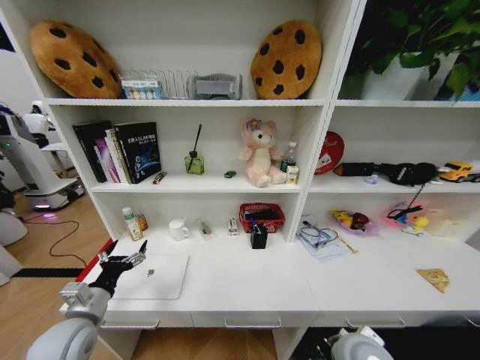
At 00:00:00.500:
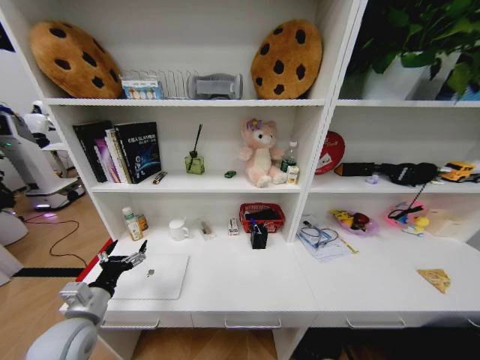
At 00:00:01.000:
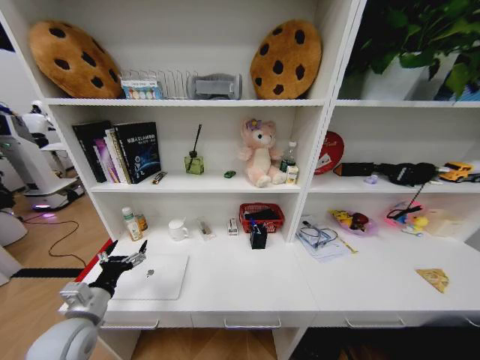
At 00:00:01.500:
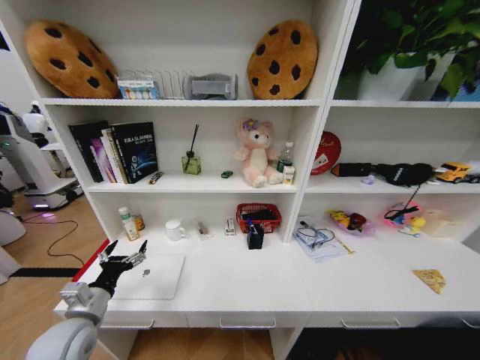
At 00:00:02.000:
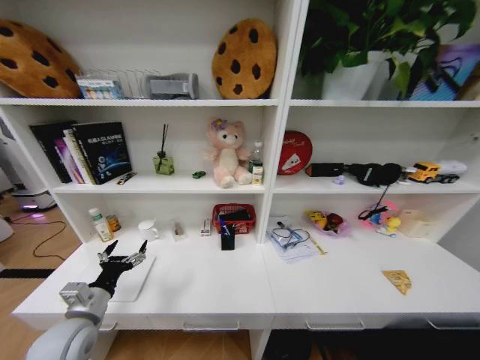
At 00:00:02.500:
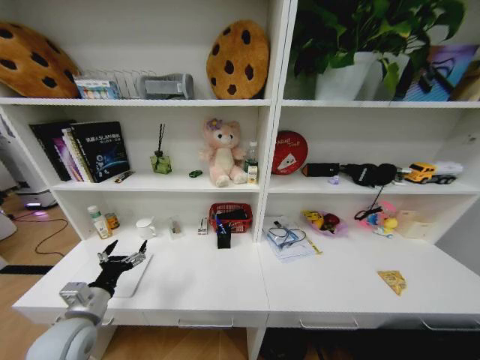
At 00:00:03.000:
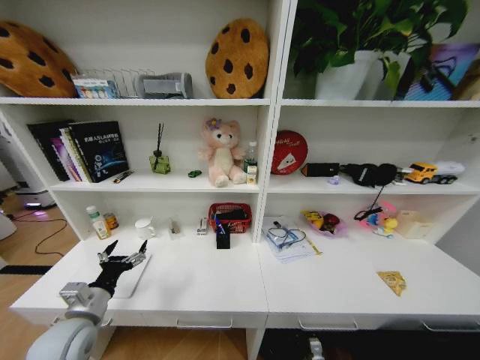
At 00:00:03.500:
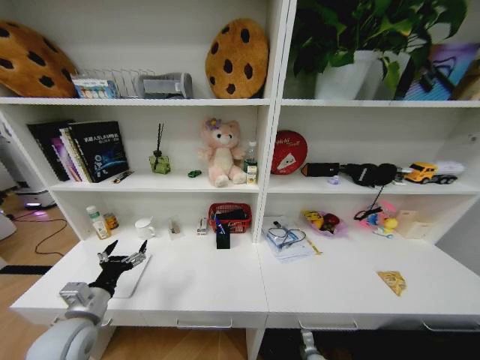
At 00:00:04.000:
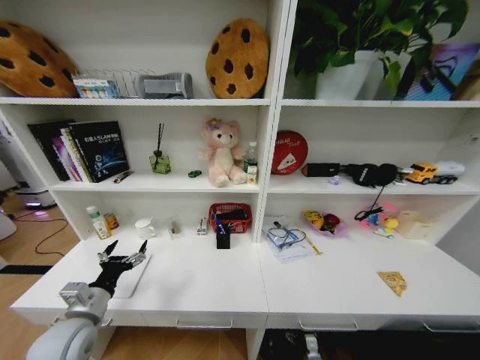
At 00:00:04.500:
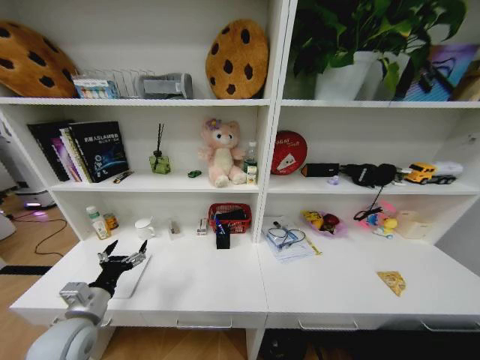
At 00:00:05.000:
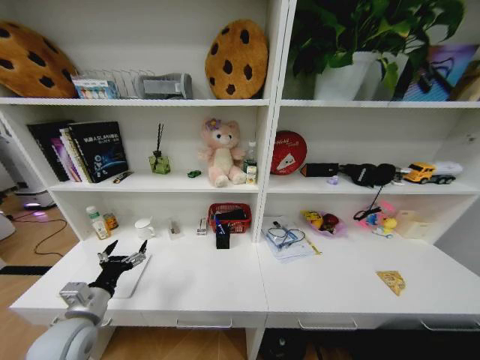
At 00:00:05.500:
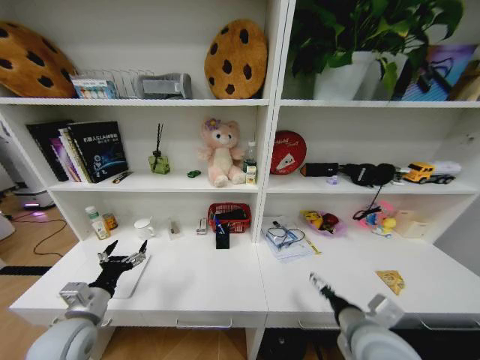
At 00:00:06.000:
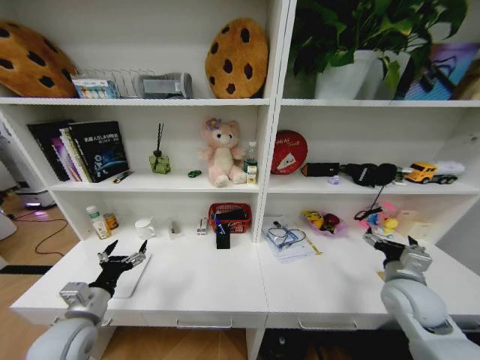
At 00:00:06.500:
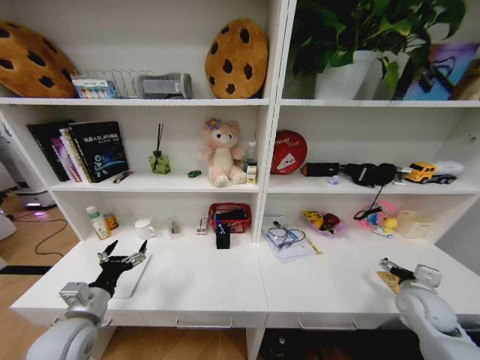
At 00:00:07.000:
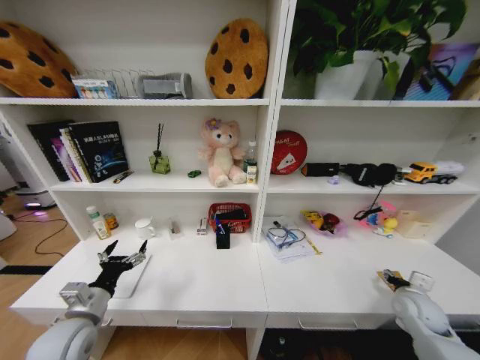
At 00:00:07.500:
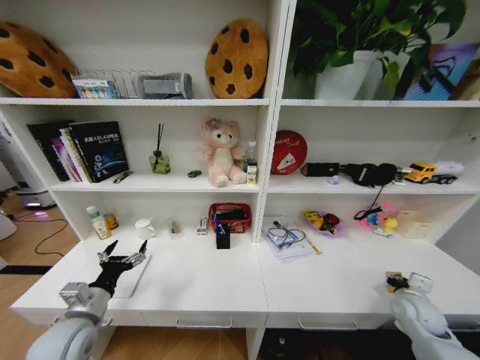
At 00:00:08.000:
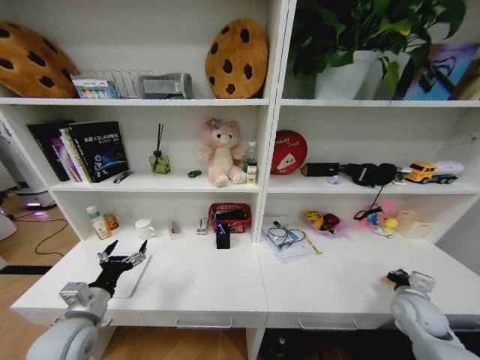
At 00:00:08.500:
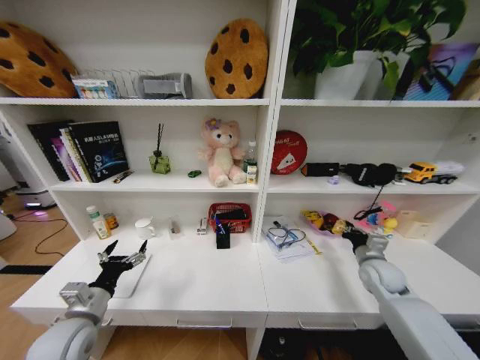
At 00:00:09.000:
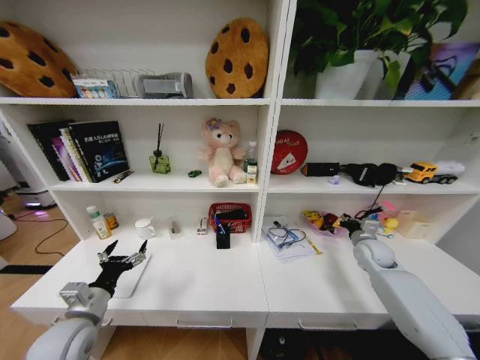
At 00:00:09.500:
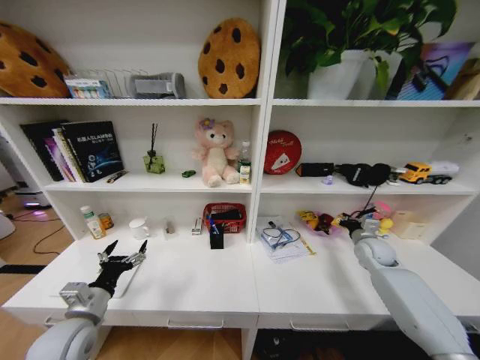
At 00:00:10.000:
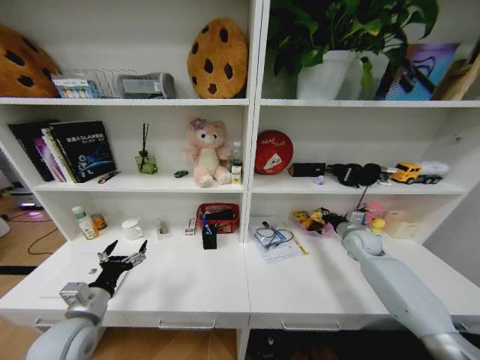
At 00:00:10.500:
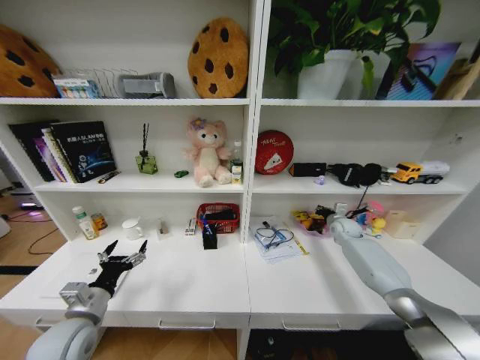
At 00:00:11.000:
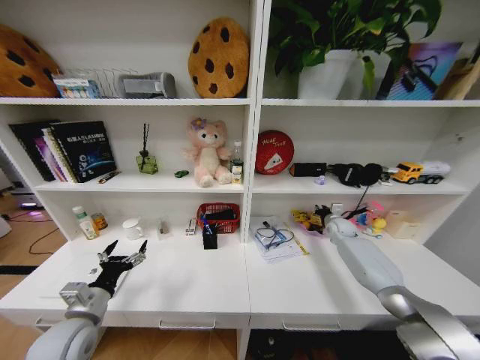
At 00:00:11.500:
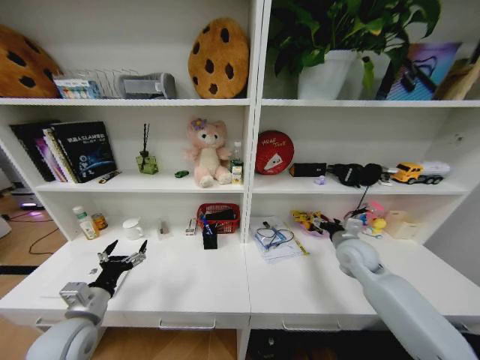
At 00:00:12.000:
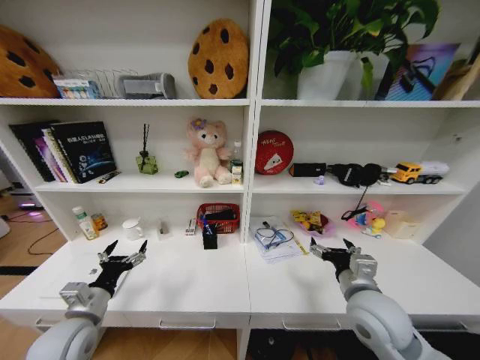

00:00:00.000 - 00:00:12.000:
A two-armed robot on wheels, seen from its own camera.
Task of the whole recording: Organize the objects on the table.
00:00:00.000 - 00:00:02.000: The right gripper goes about 50 cm downward and backward.
00:00:02.000 - 00:00:04.000: The right gripper travels forward by roughly 25 cm, and opens.
00:00:04.000 - 00:00:06.000: The right gripper moves upward, about 40 cm.
00:00:06.000 - 00:00:08.000: The right gripper is displaced downward and to the right by approximately 15 cm, and closes up.
00:00:08.000 - 00:00:10.000: The right gripper shifts about 20 cm forward.
00:00:10.000 - 00:00:12.000: The right gripper goes roughly 30 cm backward and to the left, and opens up.

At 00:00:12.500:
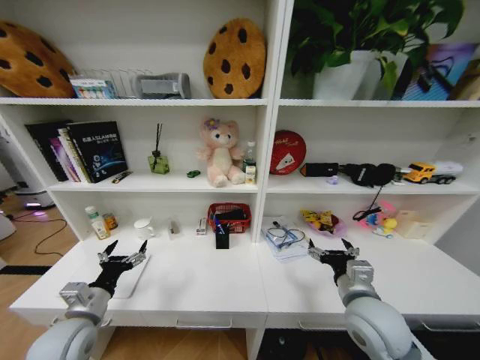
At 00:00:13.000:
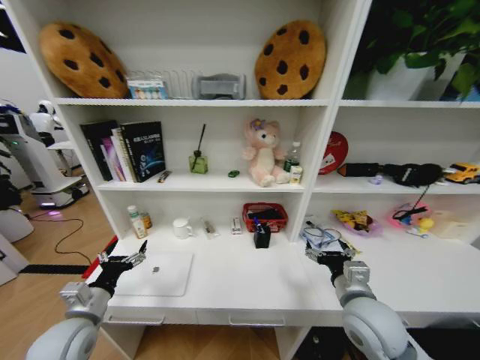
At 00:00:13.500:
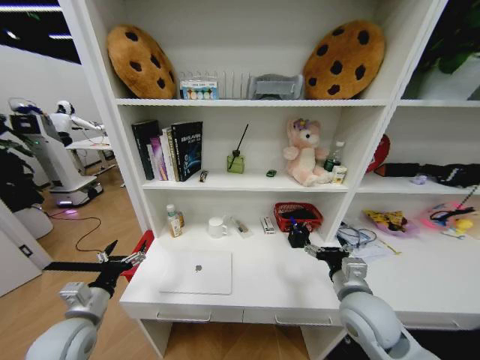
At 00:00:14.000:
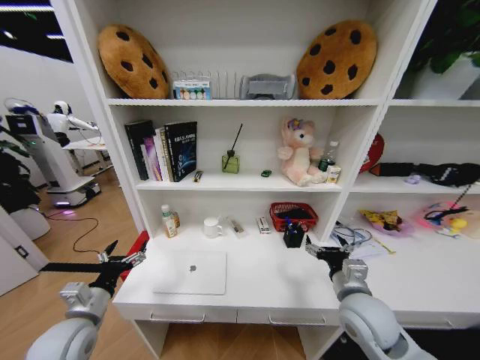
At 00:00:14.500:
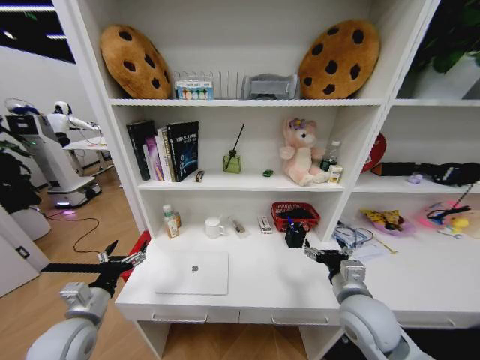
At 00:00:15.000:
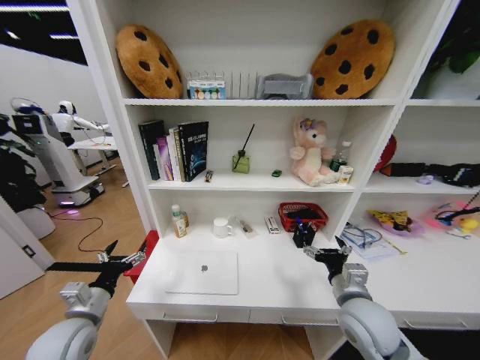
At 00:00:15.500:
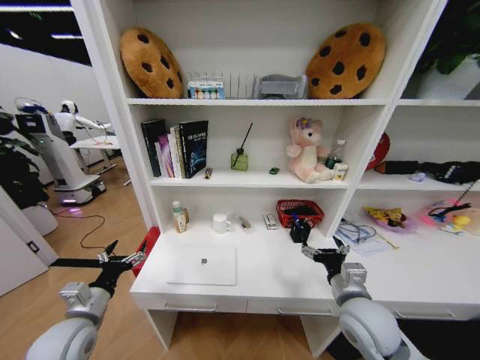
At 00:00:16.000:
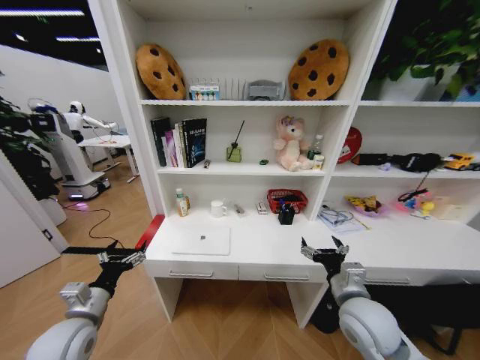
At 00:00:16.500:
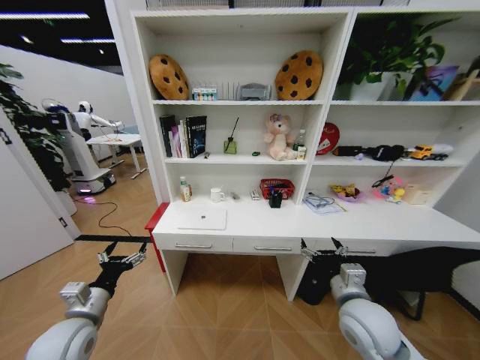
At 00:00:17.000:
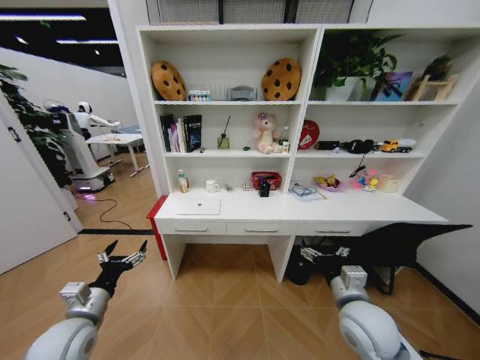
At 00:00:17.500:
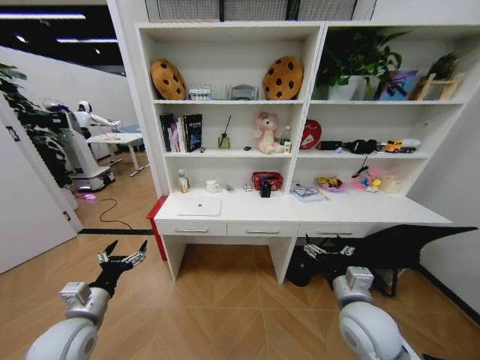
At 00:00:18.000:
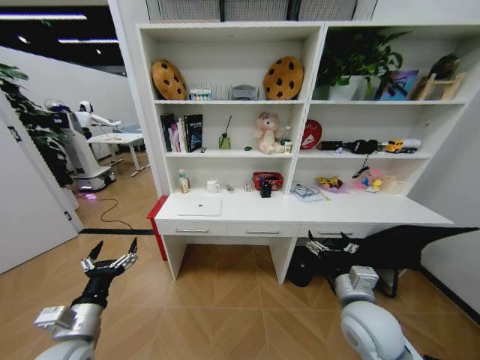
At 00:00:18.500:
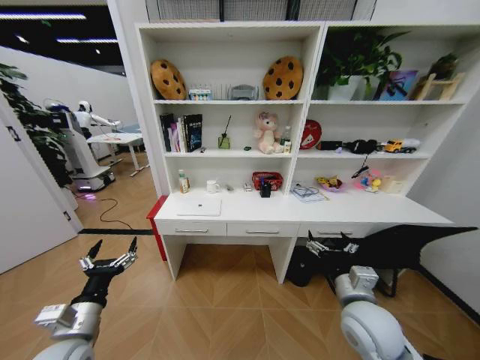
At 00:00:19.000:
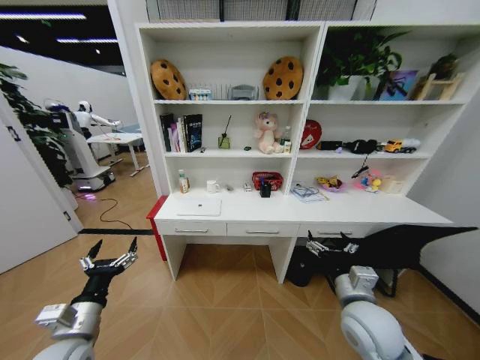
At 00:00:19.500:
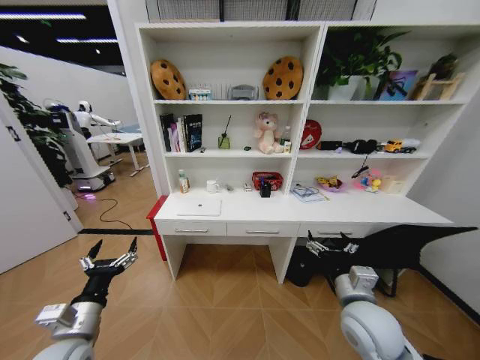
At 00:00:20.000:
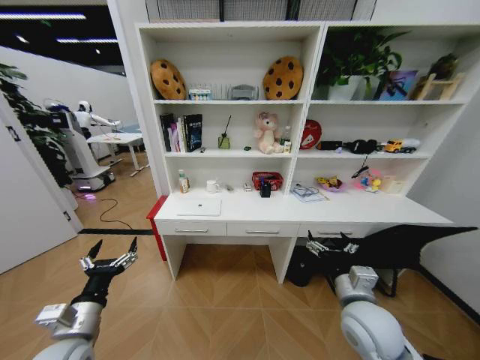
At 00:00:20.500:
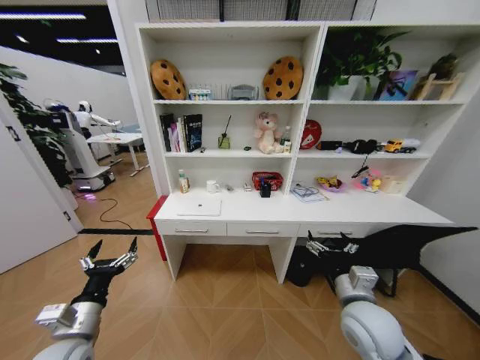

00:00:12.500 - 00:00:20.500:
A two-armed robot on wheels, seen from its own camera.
Task of the whole recording: Organize the objects on the table.
00:00:18.500 - 00:00:20.500: The two grippers keep their place.
